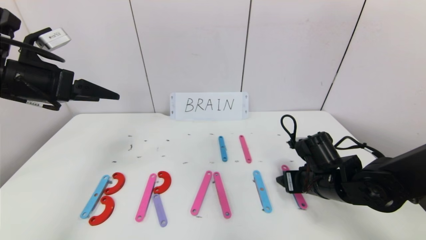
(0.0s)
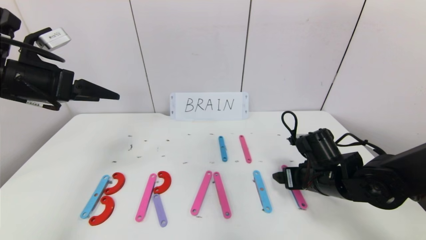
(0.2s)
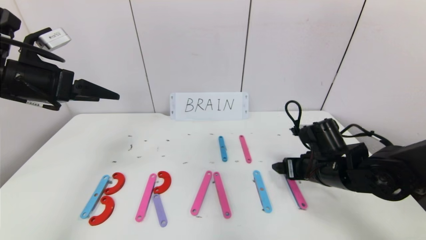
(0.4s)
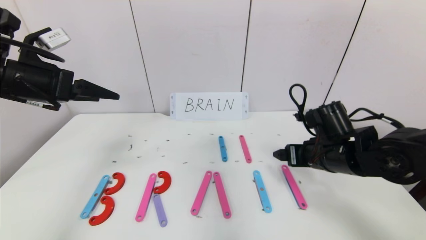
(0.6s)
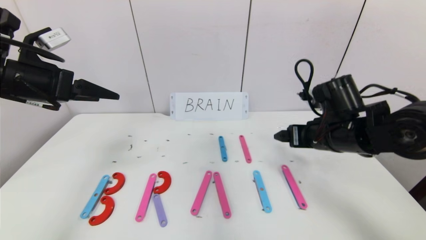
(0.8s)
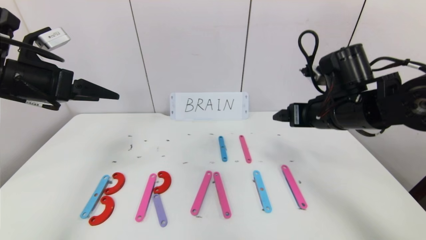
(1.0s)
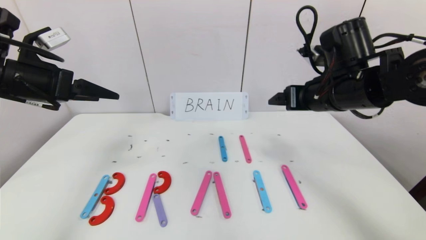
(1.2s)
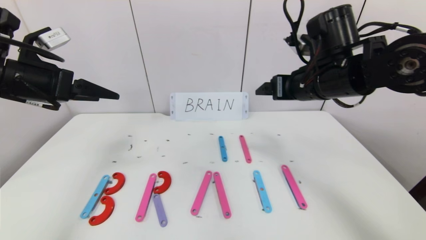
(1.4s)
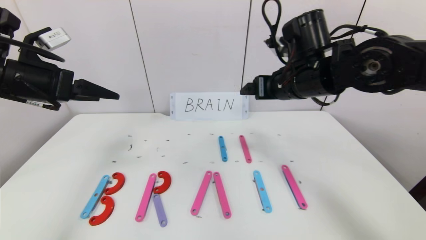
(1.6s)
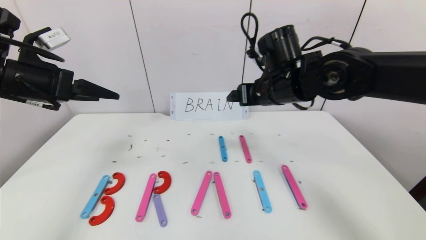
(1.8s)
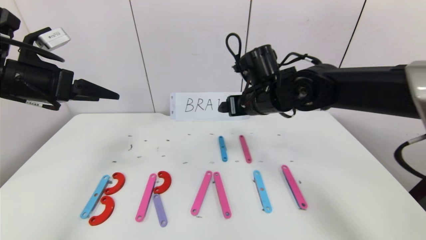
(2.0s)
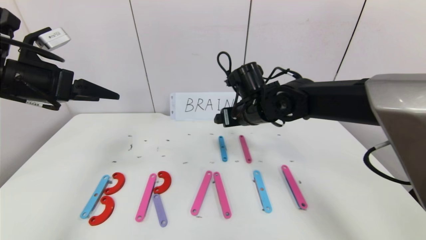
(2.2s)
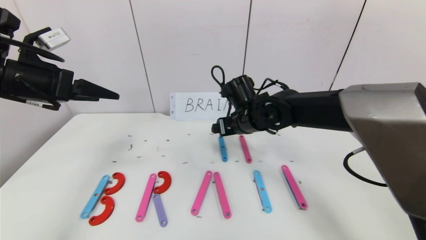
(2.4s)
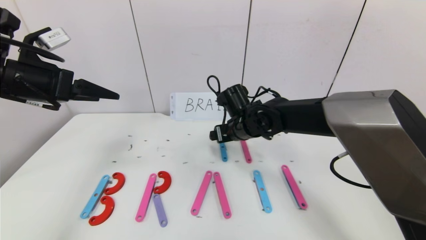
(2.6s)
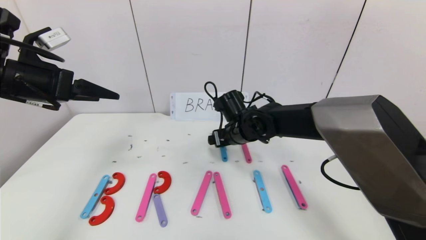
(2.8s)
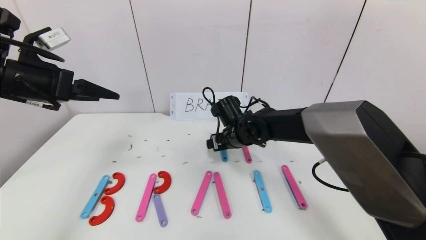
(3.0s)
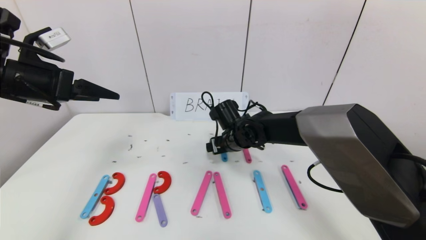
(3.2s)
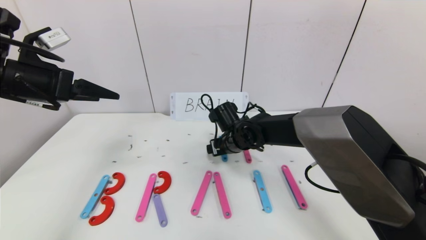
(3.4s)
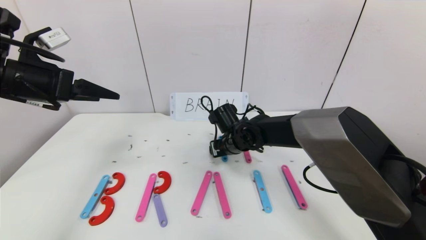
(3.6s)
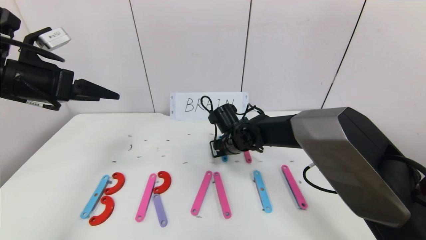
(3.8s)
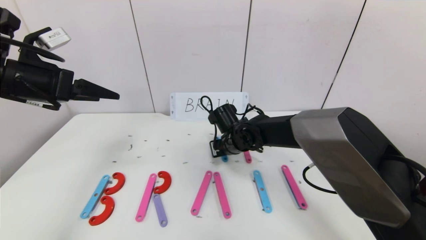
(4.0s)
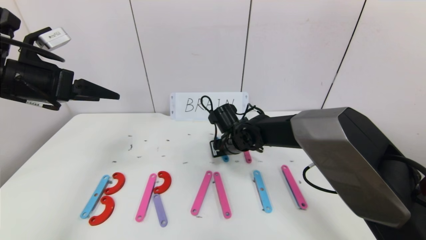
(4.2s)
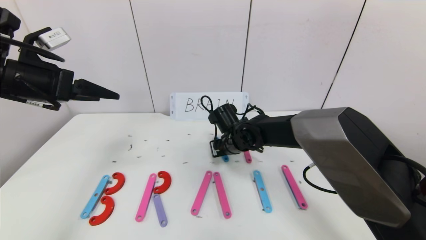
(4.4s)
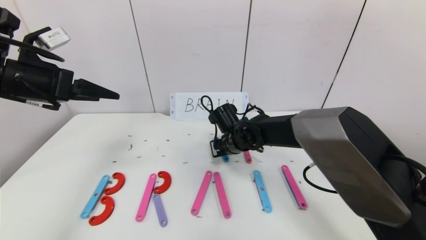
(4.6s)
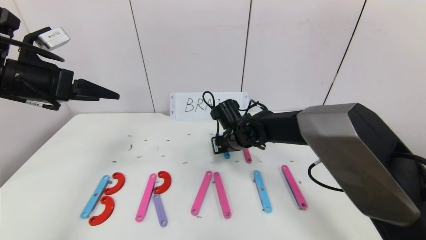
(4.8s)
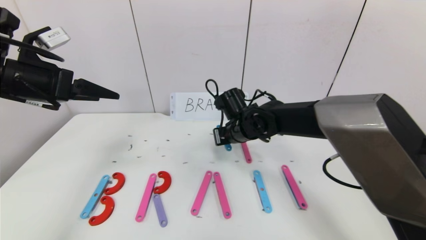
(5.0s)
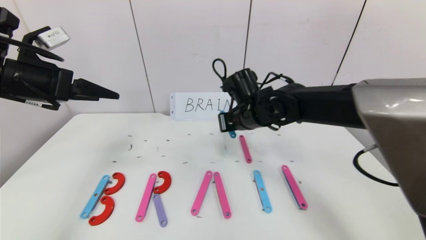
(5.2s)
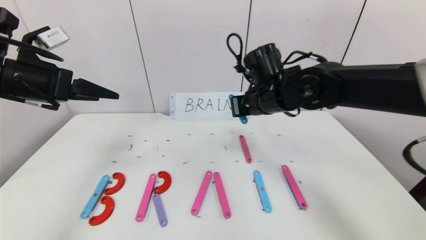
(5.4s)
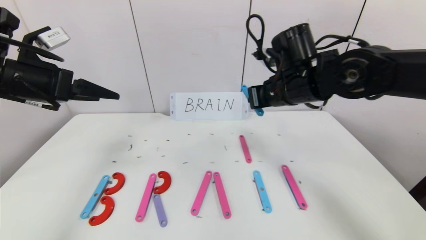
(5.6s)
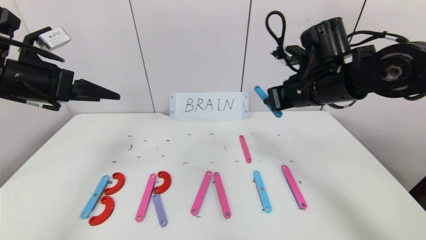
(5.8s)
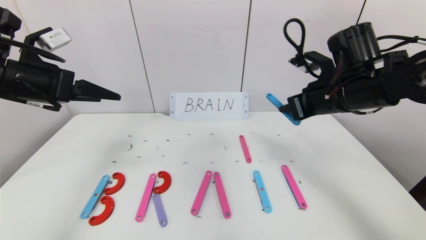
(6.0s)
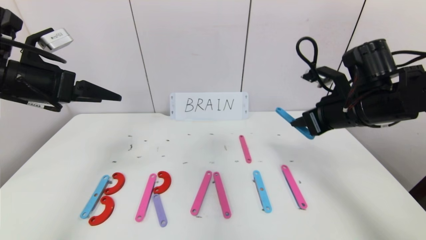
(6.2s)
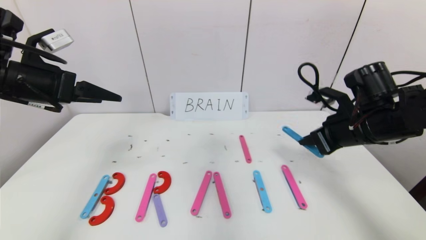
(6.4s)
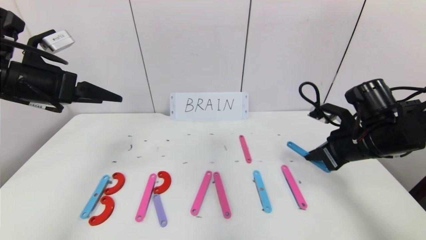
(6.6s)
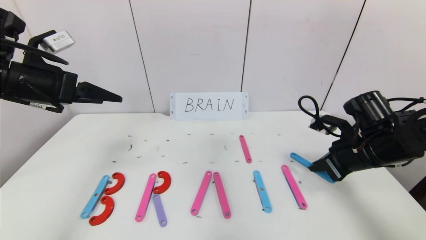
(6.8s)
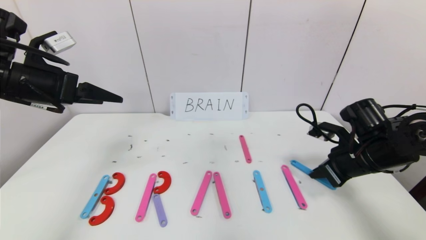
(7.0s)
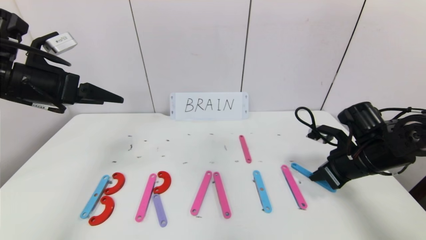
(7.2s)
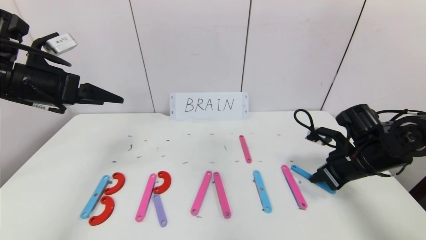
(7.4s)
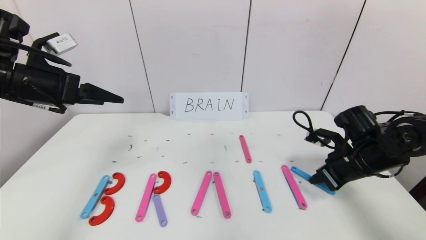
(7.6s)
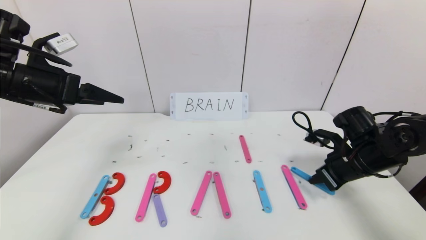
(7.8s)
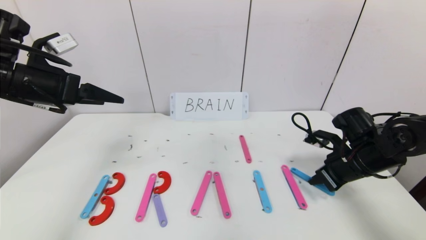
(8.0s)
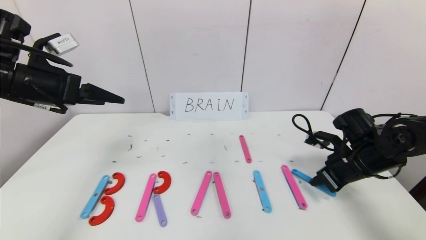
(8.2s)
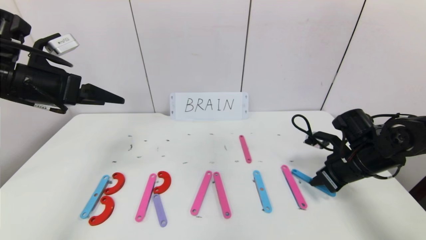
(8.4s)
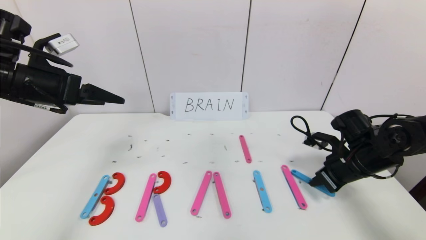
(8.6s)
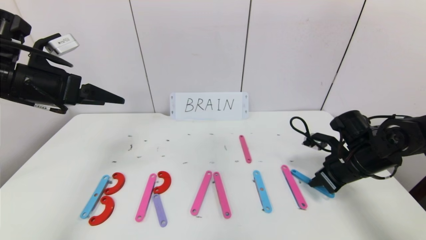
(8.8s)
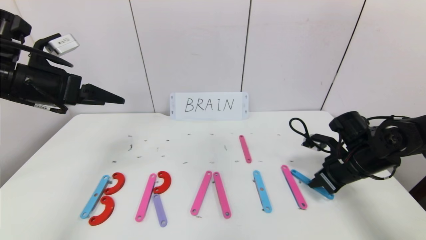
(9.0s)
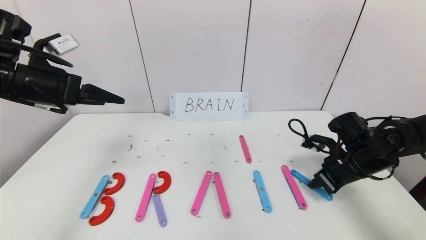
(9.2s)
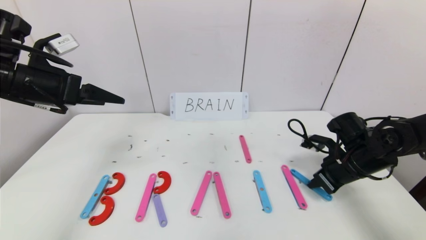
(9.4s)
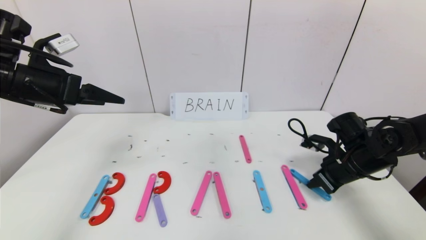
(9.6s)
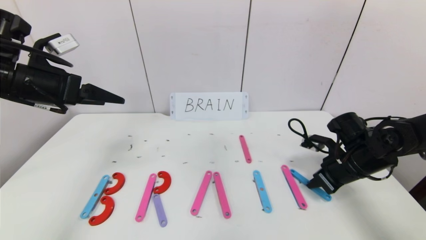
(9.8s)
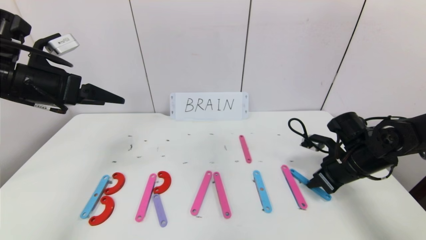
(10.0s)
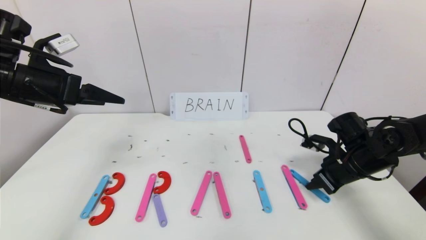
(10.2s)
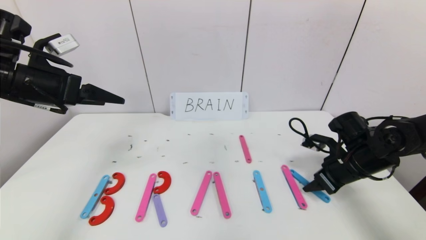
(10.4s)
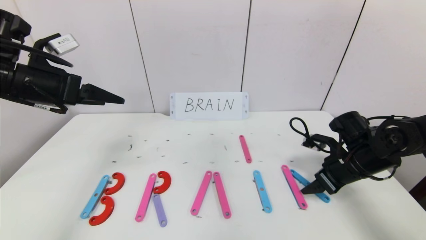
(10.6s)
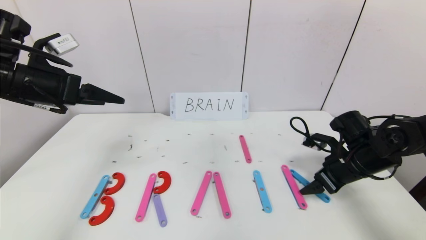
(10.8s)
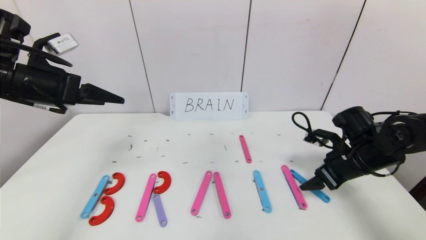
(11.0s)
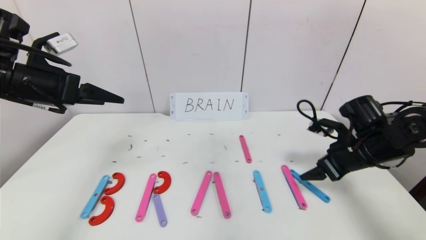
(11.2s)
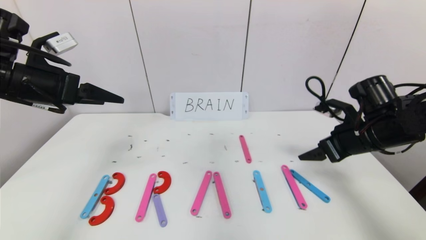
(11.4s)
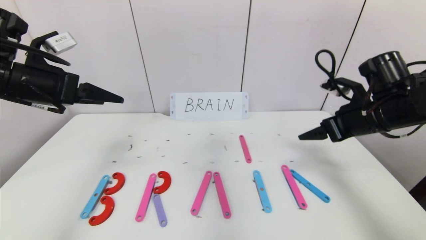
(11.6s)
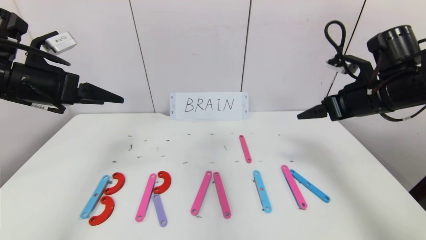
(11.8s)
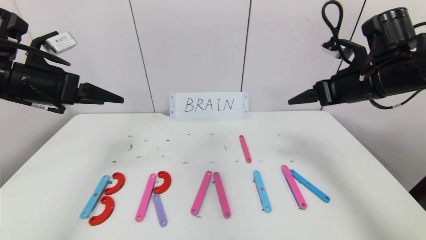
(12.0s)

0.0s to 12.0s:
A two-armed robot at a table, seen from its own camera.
Task of the whole recording: rearrange the word baai as brain.
0.0s to 1.6s: The right gripper goes approximately 20 cm upward.
1.6s to 3.0s: The right gripper travels downward and to the left by roughly 20 cm.
3.0s to 4.4s: The right gripper closes up.
4.4s to 6.0s: The right gripper is displaced to the right, upward and backward by some 25 cm.
6.0s to 7.6s: The right gripper shifts about 15 cm downward and to the right.
7.6s to 9.0s: The grippers move only a little.
9.0s to 10.4s: The right gripper opens its fingers.
10.4s to 12.0s: The right gripper moves upward, roughly 20 cm, and opens its fingers.

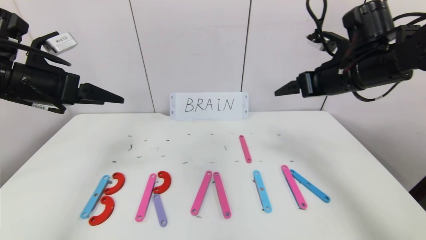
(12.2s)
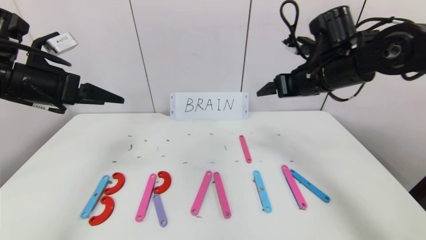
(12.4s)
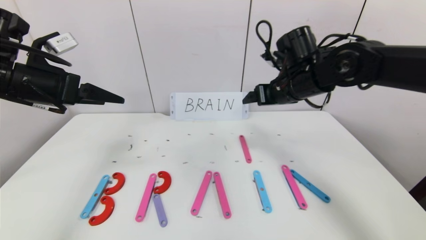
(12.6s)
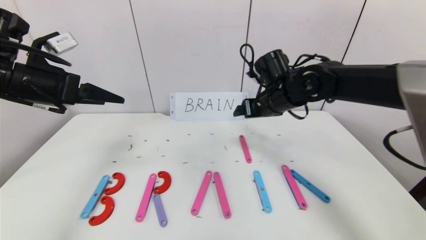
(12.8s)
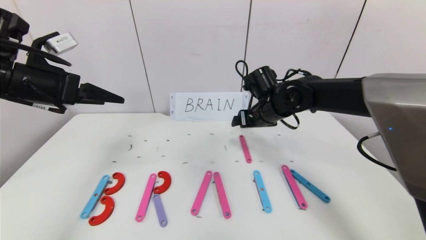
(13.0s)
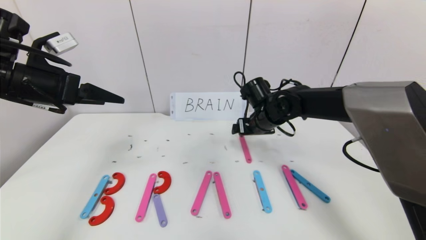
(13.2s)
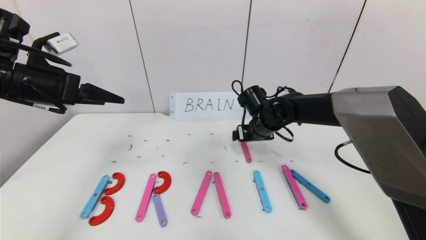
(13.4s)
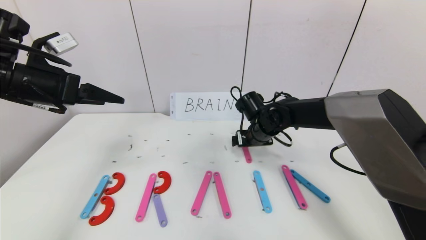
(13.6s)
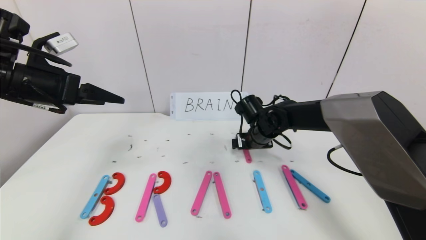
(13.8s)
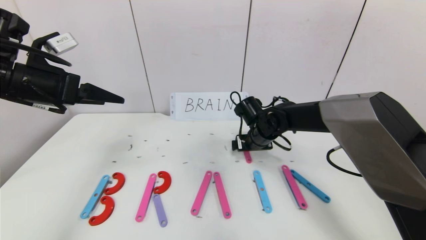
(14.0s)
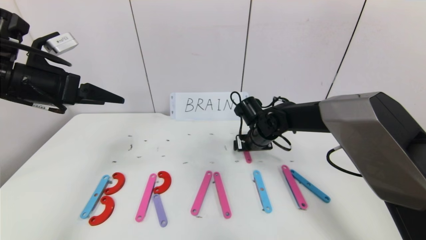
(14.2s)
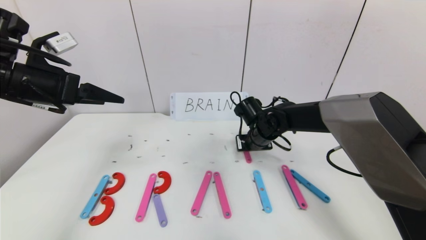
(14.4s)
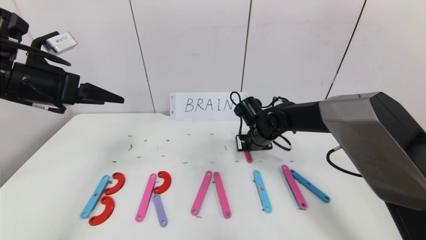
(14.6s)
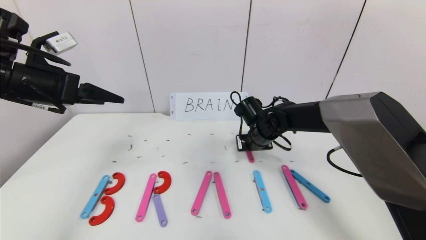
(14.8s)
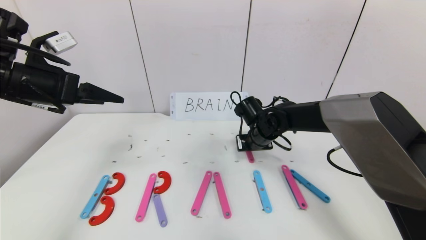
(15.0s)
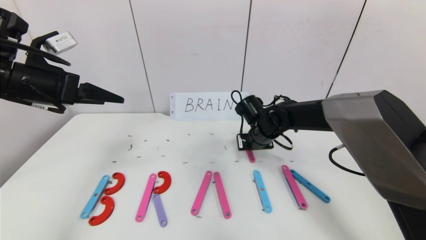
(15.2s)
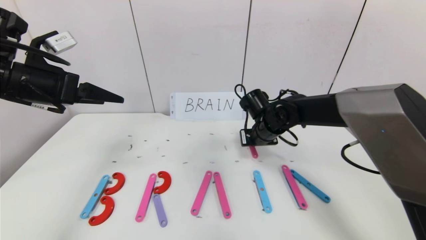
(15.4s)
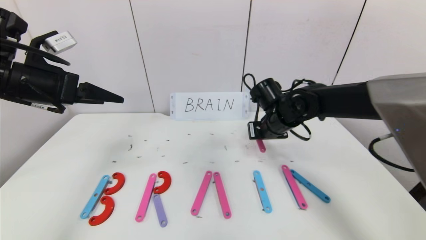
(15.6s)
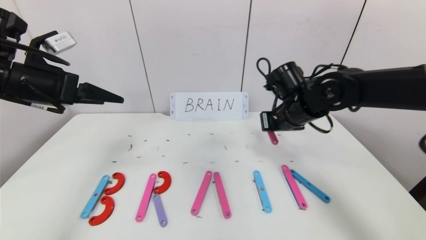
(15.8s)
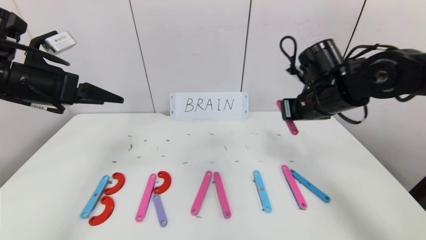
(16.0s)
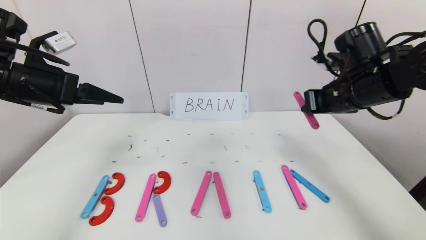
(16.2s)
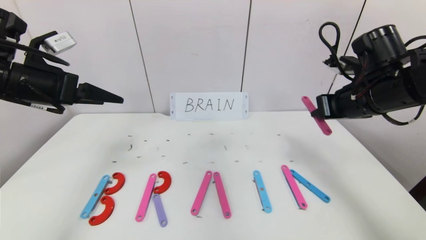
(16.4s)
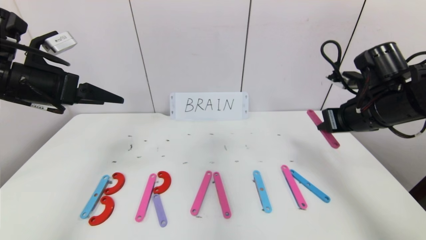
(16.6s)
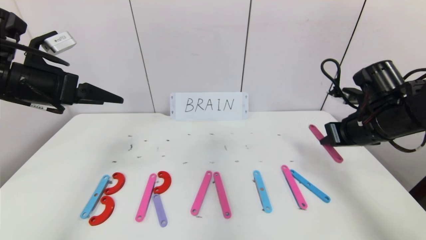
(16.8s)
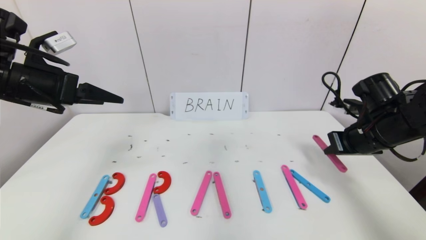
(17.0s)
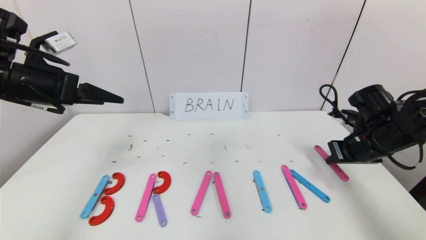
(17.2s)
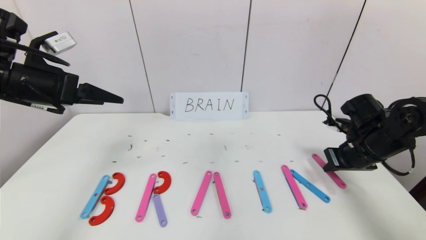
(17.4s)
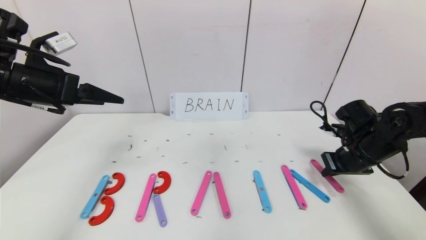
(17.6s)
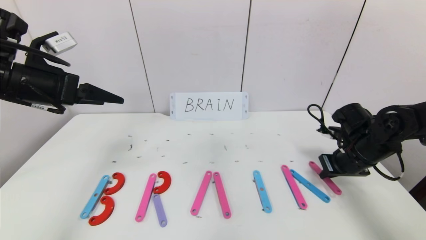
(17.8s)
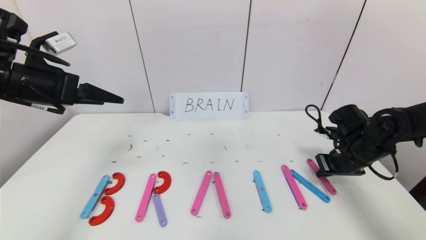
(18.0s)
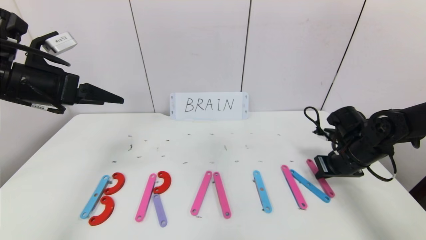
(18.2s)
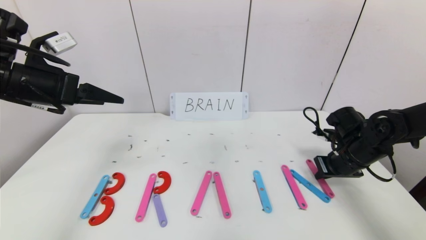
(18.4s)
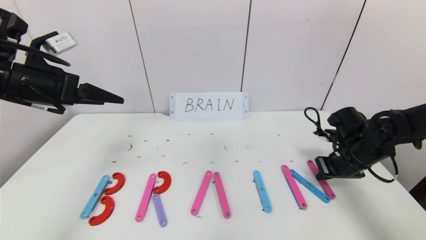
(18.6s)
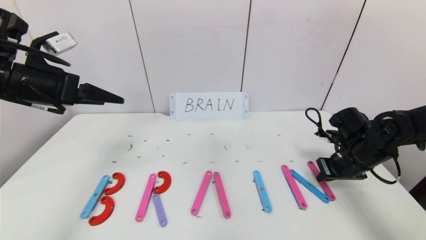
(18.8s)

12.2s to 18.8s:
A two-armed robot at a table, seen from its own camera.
Task of the whole recording: rearrange the word baai as brain.
12.2s to 13.8s: The right gripper moves downward and to the left, about 25 cm.
13.8s to 15.4s: The right gripper closes up.
15.4s to 17.2s: The right gripper is displaced to the right and backward by about 20 cm.
17.2s to 18.8s: The right gripper shifts some 5 cm downward.
